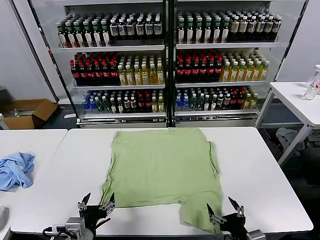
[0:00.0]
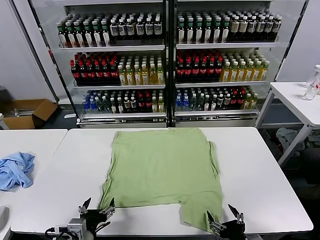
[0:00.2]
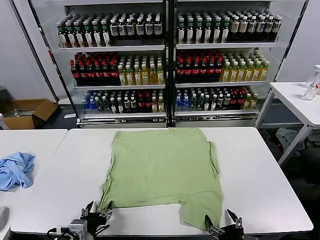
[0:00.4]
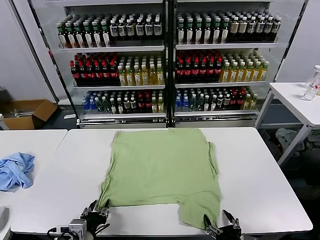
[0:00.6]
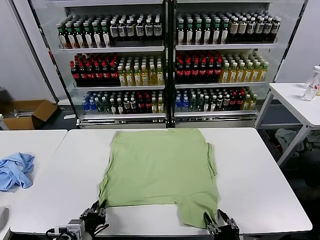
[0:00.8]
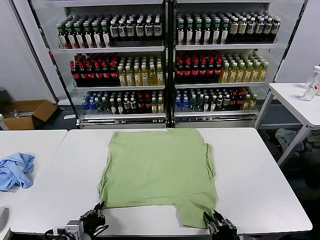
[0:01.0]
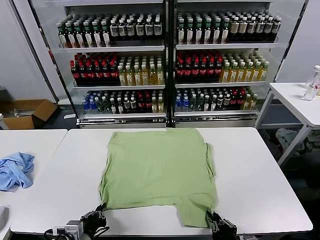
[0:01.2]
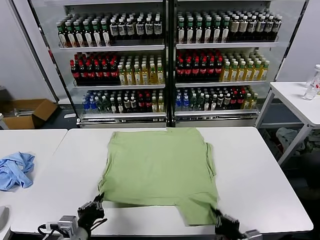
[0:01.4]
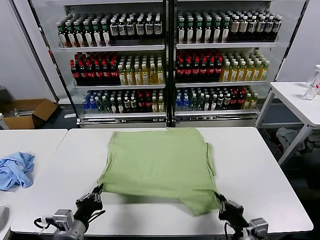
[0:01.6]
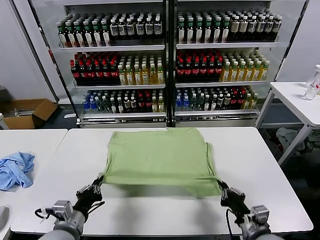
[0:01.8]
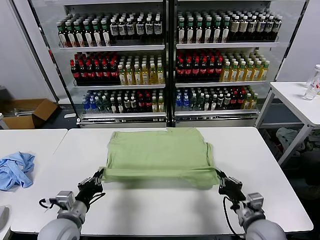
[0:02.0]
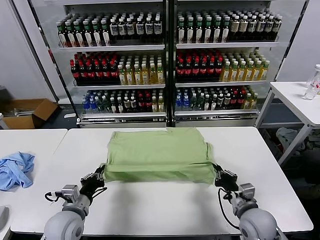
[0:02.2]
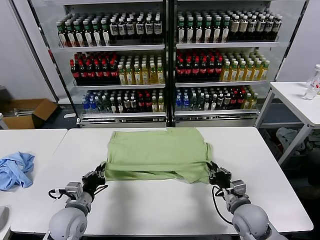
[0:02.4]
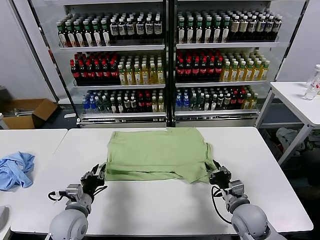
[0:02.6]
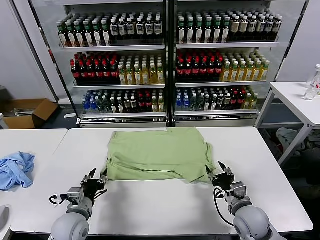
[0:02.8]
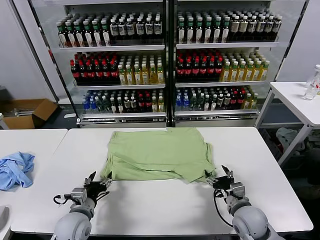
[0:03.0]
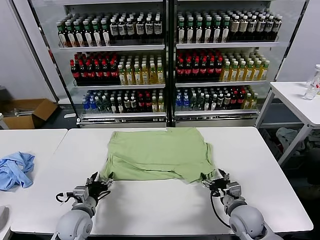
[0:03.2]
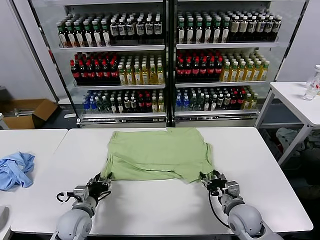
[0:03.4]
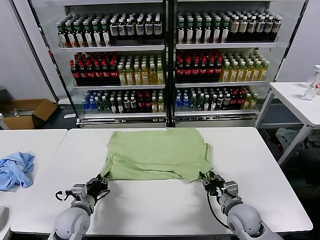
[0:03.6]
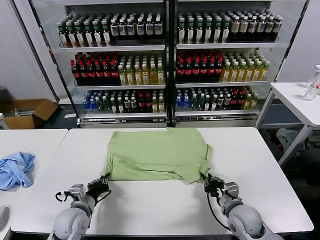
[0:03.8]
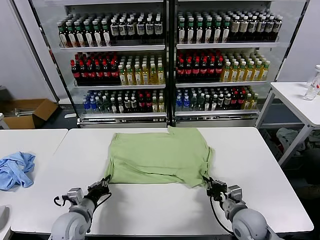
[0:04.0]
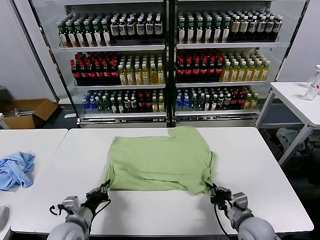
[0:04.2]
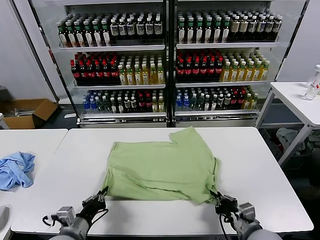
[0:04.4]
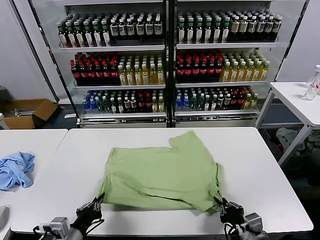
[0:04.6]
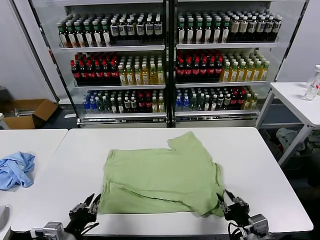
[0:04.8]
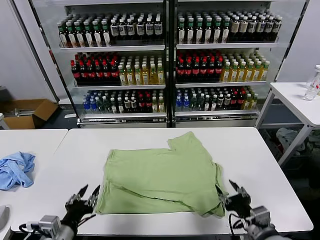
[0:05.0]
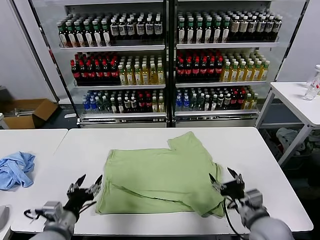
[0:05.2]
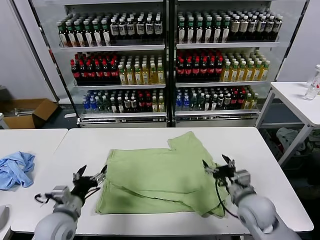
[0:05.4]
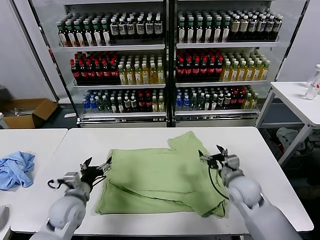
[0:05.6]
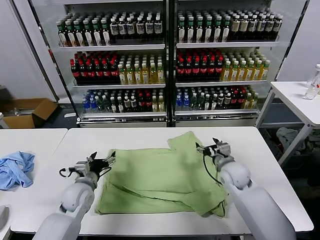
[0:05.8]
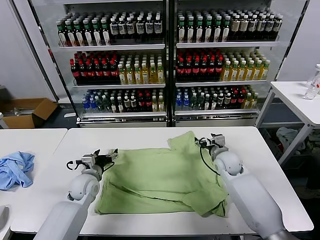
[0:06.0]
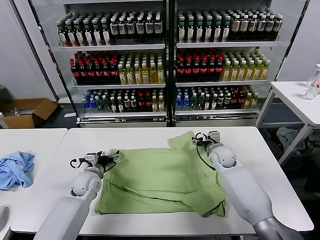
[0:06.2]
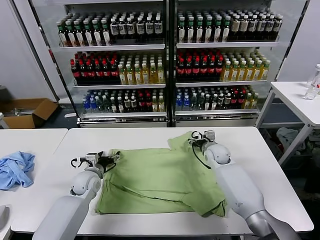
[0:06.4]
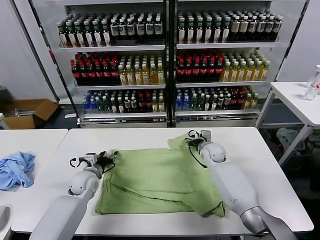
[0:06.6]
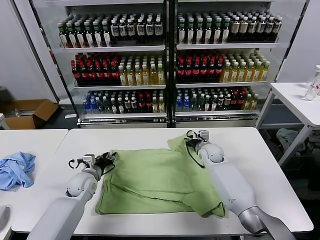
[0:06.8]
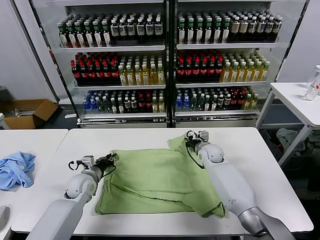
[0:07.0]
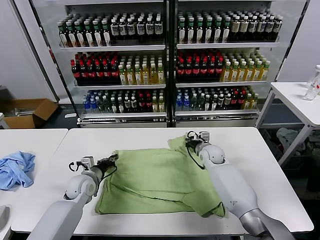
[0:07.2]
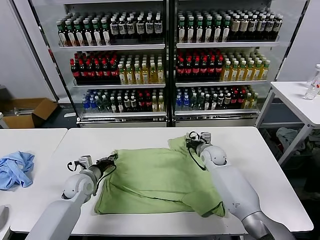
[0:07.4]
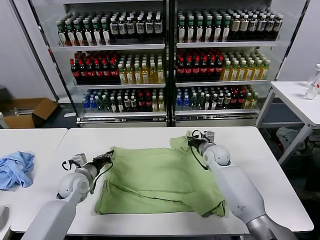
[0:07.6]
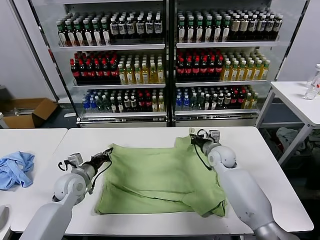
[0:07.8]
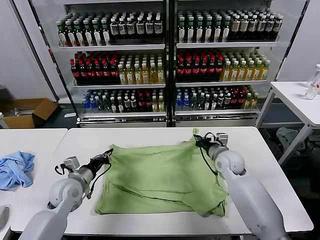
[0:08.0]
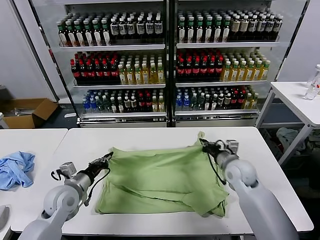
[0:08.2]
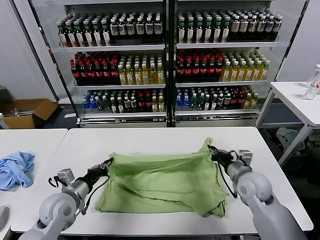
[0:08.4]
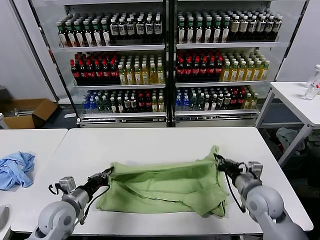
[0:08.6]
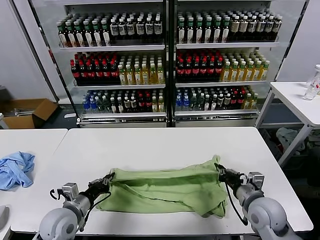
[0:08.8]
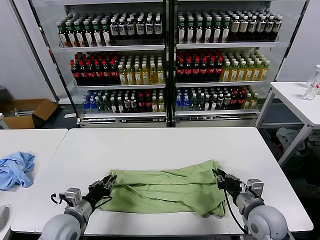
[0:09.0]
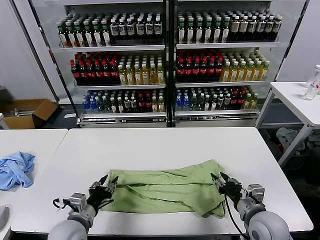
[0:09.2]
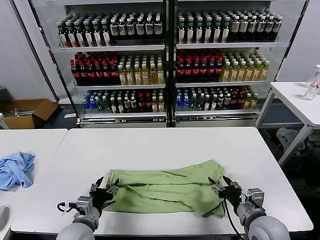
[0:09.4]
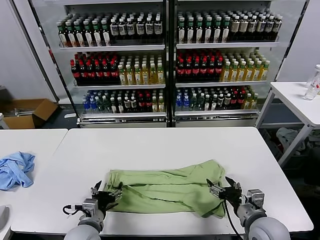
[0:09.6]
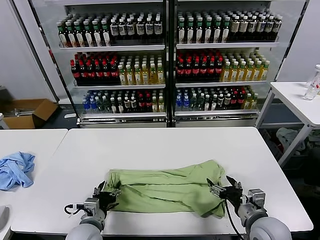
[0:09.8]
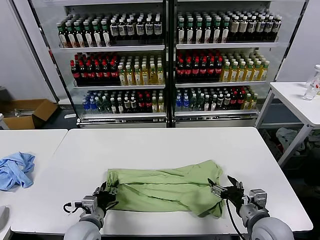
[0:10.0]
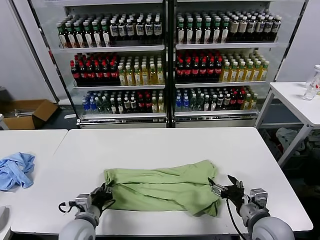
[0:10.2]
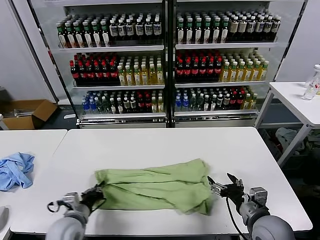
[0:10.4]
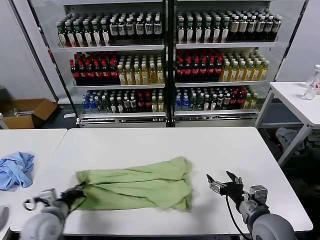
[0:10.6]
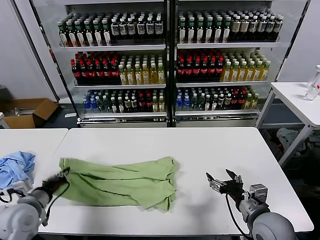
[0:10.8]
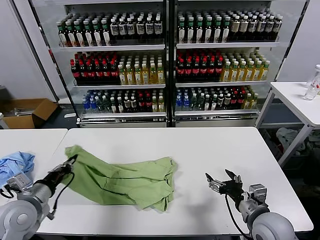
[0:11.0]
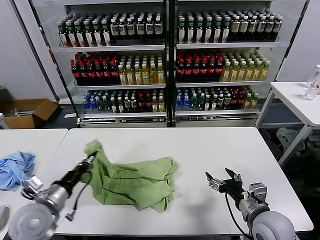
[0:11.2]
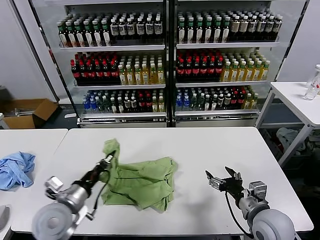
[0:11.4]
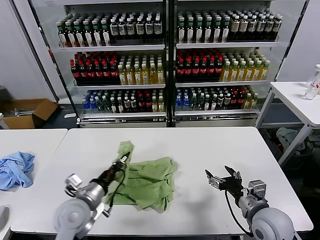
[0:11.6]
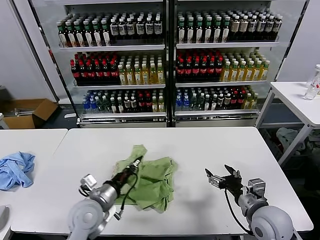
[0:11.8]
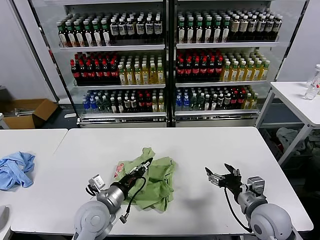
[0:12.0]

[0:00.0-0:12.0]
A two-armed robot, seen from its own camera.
Task of the whole recording: fold and organize the clothes.
Step, 0:00.0 to 0:01.2: use both grippers simultaneously to clamp the lower edge of the clothing fabric.
Step, 0:01.6 to 0:02.8: use both grippers to drag the lower edge of the fabric forward and fold it over the upper edge.
Step, 0:03.0 to 0:04.8: Drag the clothes downward with both gripper.
Step, 0:05.0 to 0:07.0: use both grippers simultaneously to clamp the upper edge of the clothing fabric.
Step, 0:07.4 to 0:09.0: use both grippers to drag the upper edge of the fabric backward and fold it over the lower edge.
Step, 0:09.2 to 0:10.4: use the left gripper to clamp the left edge of the fabric.
0:01.6 to 0:03.0: The left gripper is displaced forward and downward by approximately 10 cm, and opens up, while the right gripper travels forward by some 10 cm, and opens.
0:03.0 to 0:04.4: The two grippers go roughly 10 cm backward. The left gripper closes, while the right gripper closes.
0:04.4 to 0:06.0: The two grippers go about 25 cm forward. The right gripper opens; the left gripper opens its fingers.
0:06.0 to 0:07.6: The left gripper closes, while the right gripper closes up.
0:07.6 to 0:09.0: The right gripper moves backward, about 25 cm; the left gripper heads backward, covering roughly 15 cm.
0:09.0 to 0:10.4: The right gripper opens; the left gripper opens, then closes again.
0:10.4 to 0:12.0: The left gripper goes about 10 cm to the right and upward.

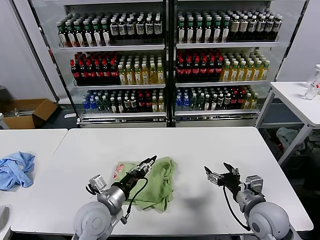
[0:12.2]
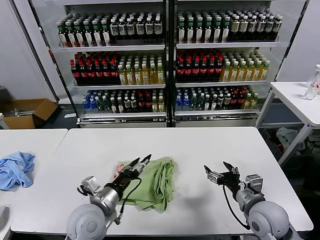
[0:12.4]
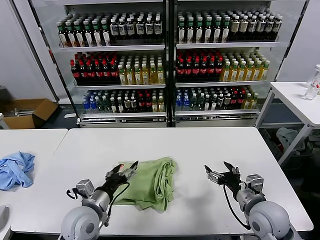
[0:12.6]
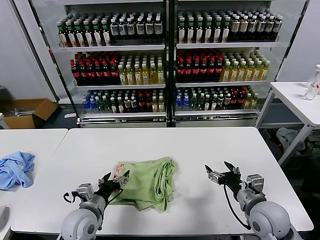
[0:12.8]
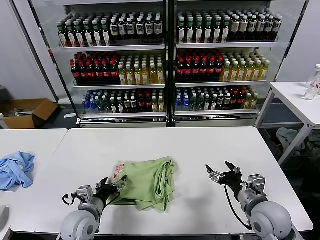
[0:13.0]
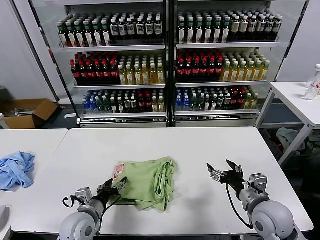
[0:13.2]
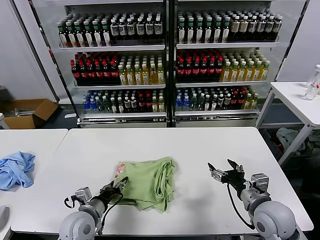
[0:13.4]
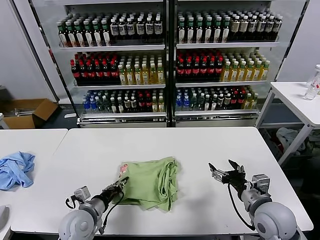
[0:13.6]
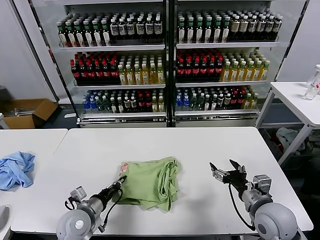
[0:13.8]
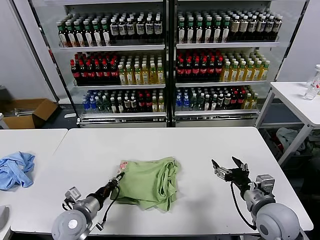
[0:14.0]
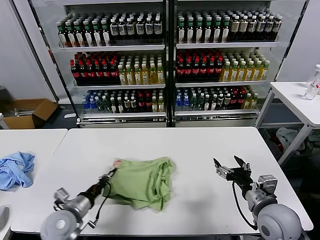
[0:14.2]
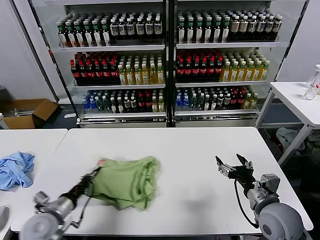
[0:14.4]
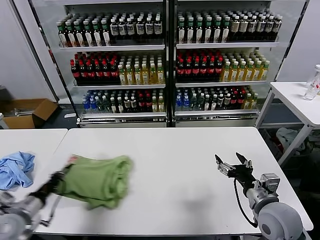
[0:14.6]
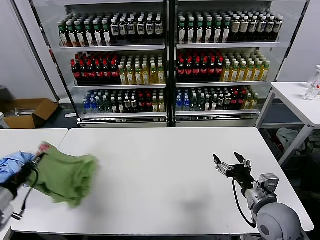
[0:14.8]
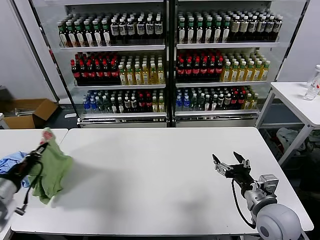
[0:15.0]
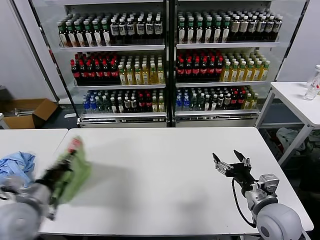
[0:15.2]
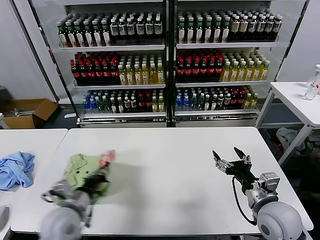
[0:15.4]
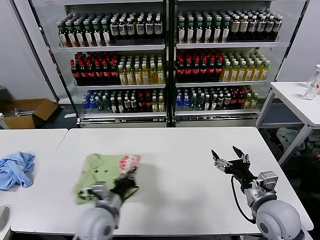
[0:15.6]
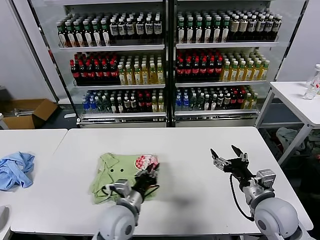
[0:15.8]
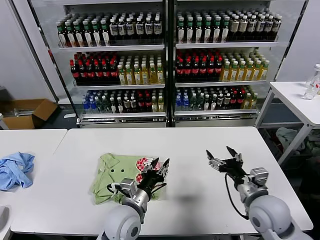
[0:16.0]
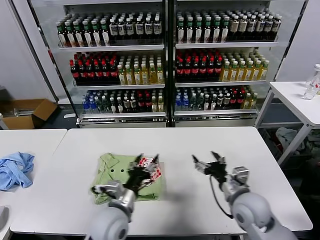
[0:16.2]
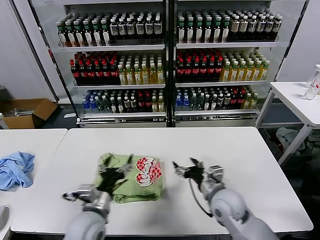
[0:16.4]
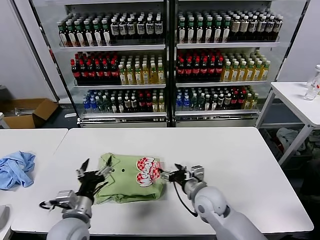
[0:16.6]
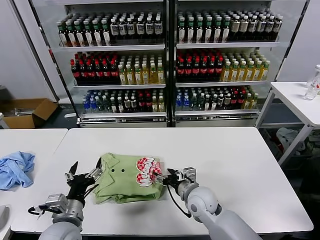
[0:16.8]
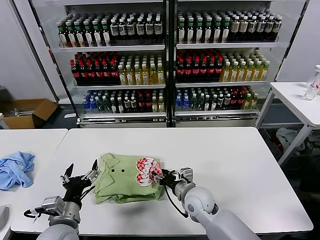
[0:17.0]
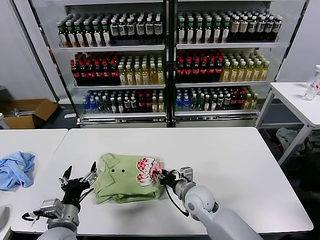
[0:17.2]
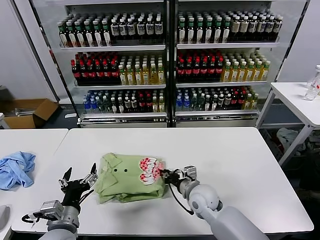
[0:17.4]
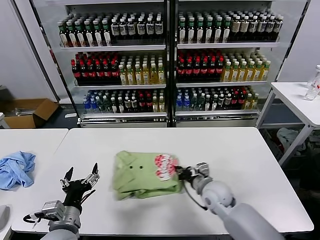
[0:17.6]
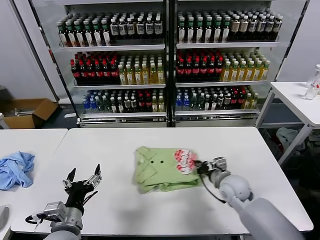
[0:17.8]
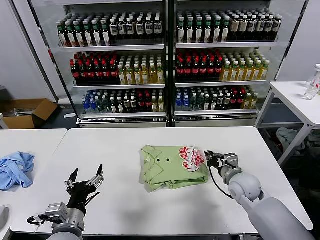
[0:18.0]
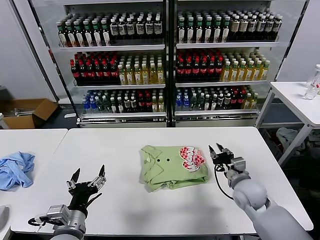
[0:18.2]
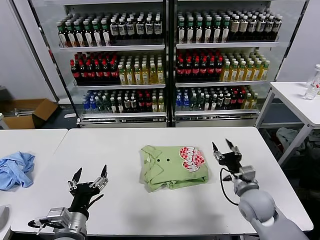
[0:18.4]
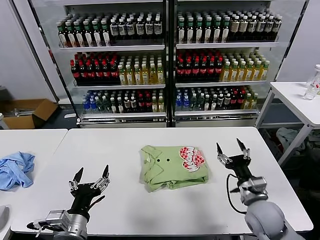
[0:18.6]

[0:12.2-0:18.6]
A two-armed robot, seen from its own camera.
Task of the whole recording: fold and organize the clothes.
Step, 0:12.4 to 0:15.8: Flip the folded clothes over with left gripper.
Step, 0:16.0 to 0:18.0: Drag the clothes to the center of the table.
0:12.2 to 0:13.8: The left gripper moves to the left and downward, roughly 10 cm, and opens and closes again.
0:13.8 to 0:15.4: The left gripper is displaced upward by about 10 cm, and goes to the left and returns, approximately 20 cm each way.
0:15.4 to 0:17.0: The right gripper heads to the left, downward and forward, covering roughly 20 cm. Meanwhile the left gripper travels to the right and back again, approximately 20 cm each way, and opens up.
0:17.0 to 0:18.6: The left gripper moves roughly 5 cm, while the right gripper is displaced to the right by some 15 cm, and closes, then opens again.

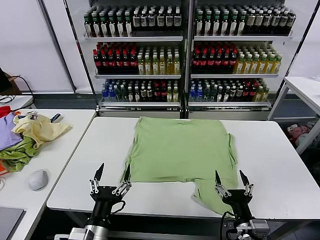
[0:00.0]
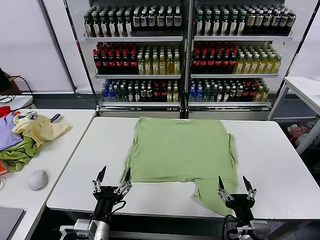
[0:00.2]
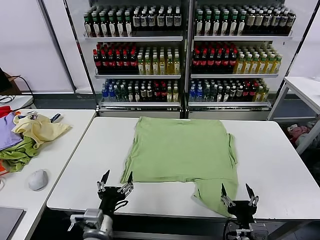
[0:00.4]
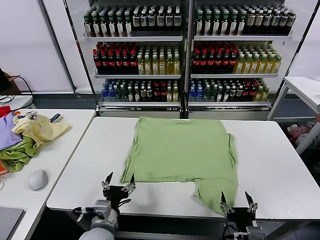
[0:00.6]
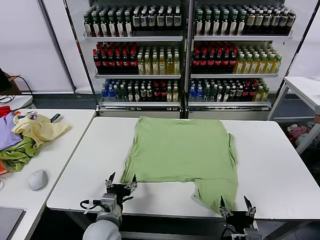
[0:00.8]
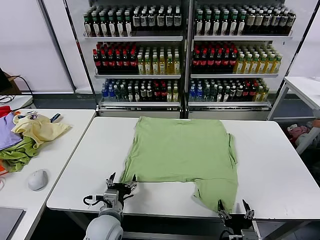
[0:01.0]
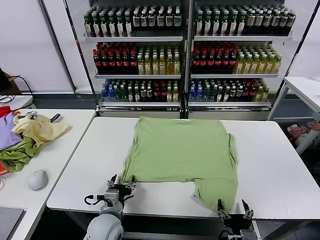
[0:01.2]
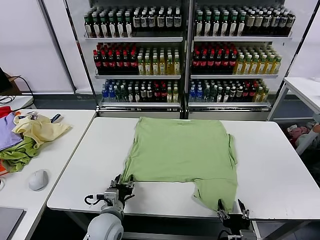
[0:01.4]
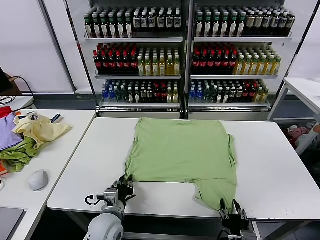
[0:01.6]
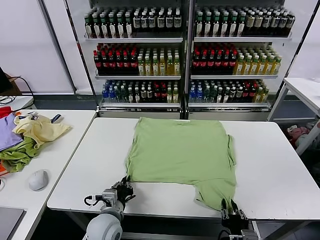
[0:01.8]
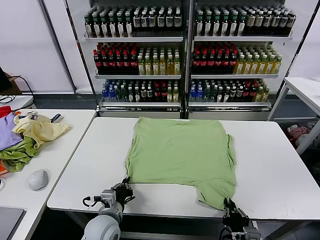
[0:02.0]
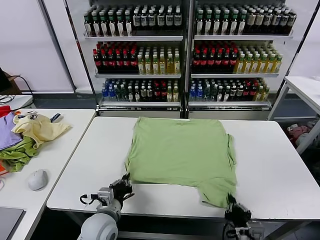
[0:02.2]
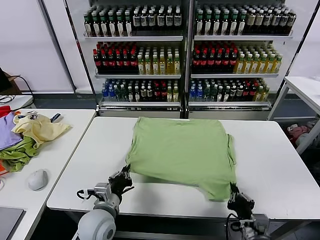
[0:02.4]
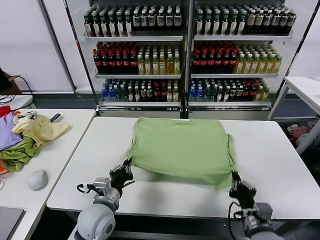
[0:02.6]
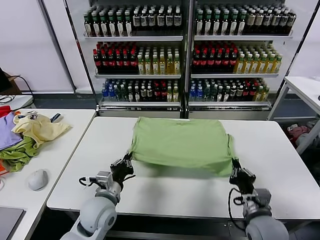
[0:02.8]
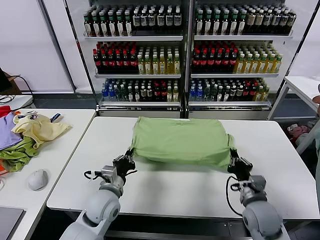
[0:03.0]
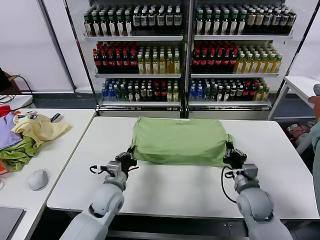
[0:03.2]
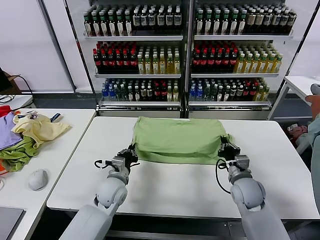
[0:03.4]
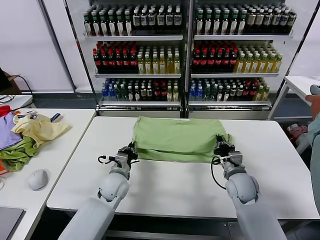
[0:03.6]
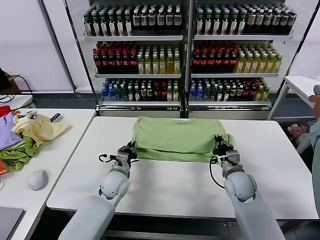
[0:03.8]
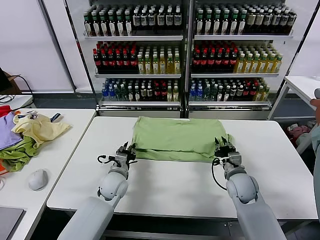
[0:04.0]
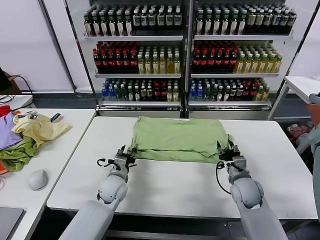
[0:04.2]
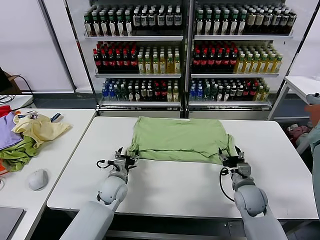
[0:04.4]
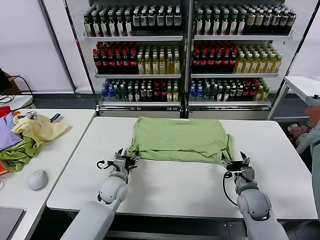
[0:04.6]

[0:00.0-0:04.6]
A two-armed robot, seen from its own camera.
Task of the whole recording: fold and organize the clothes.
Step, 0:00.0 to 0:02.0: use both grippers simultaneously to clamp the lower edge of the clothing fabric.
Step, 0:02.2 to 0:04.0: use both grippers to drag the lower edge of the fabric forward and fold it over the upper edge.
0:01.6 to 0:03.0: The right gripper travels forward by approximately 20 cm, and closes. The left gripper shifts approximately 5 cm forward.
0:03.0 to 0:04.6: The right gripper shifts about 5 cm downward, and opens up, while the left gripper travels forward and downward by approximately 10 cm, and opens.
